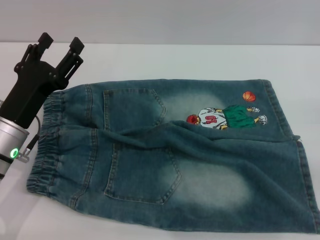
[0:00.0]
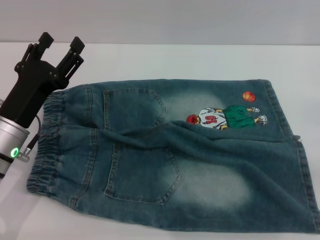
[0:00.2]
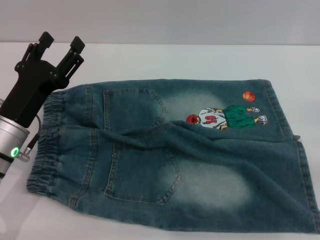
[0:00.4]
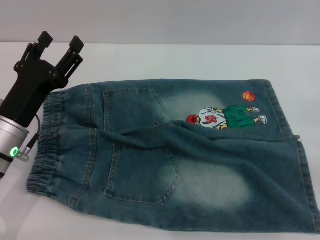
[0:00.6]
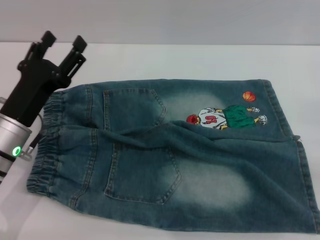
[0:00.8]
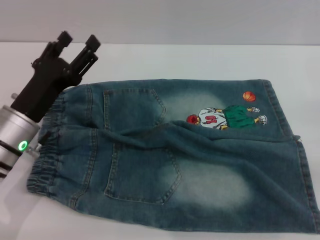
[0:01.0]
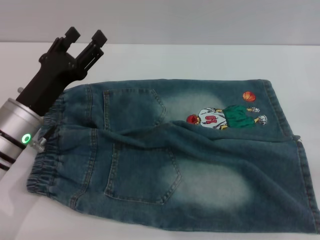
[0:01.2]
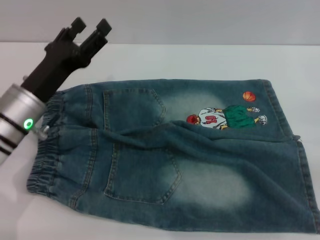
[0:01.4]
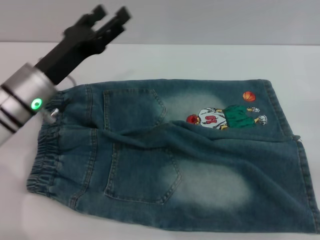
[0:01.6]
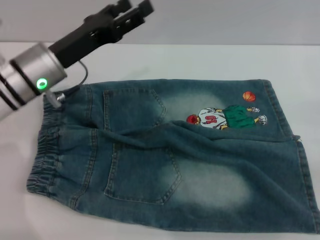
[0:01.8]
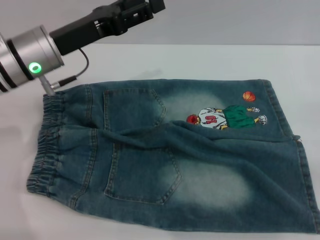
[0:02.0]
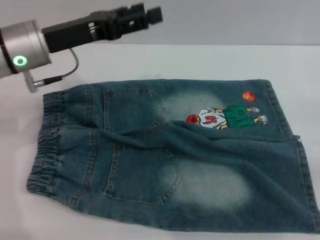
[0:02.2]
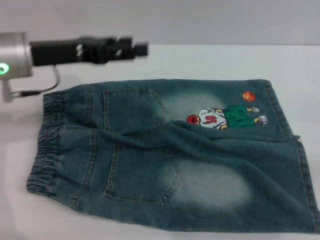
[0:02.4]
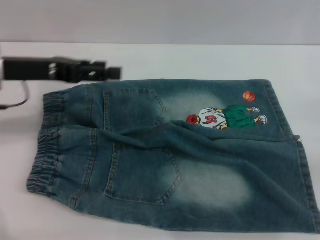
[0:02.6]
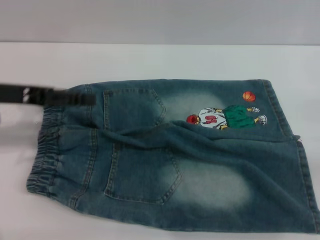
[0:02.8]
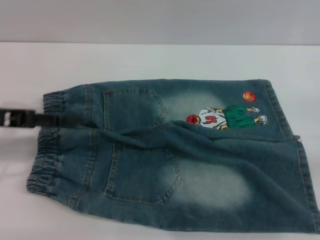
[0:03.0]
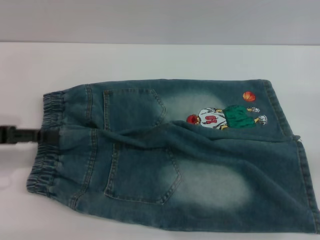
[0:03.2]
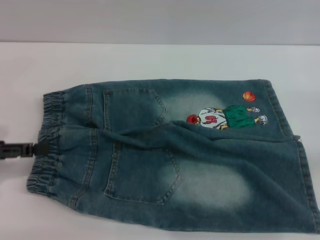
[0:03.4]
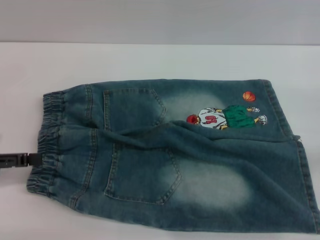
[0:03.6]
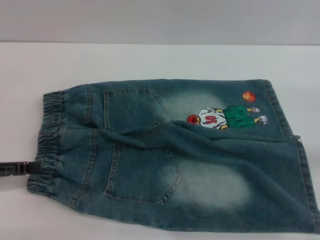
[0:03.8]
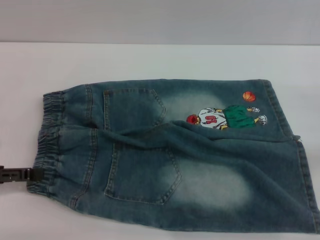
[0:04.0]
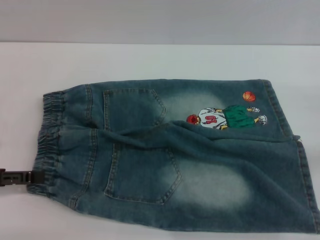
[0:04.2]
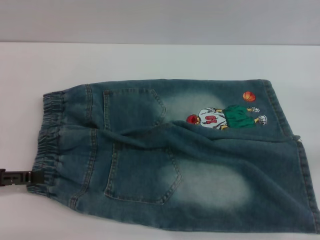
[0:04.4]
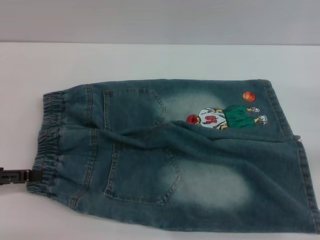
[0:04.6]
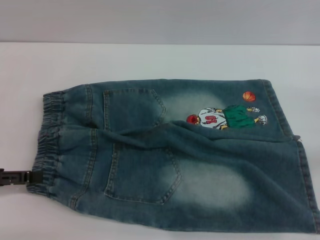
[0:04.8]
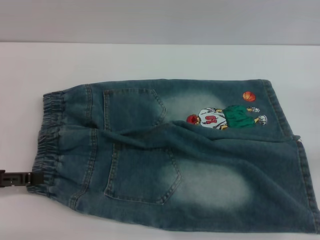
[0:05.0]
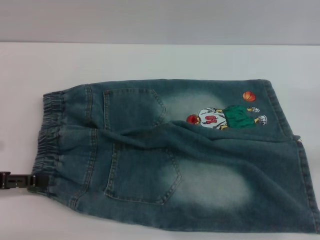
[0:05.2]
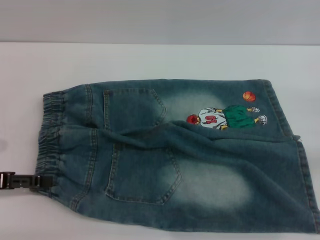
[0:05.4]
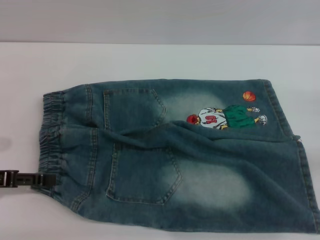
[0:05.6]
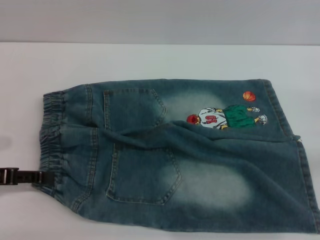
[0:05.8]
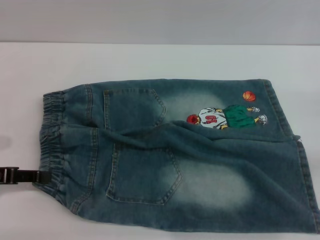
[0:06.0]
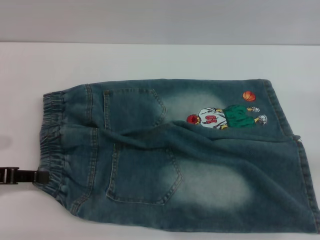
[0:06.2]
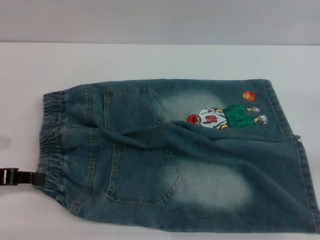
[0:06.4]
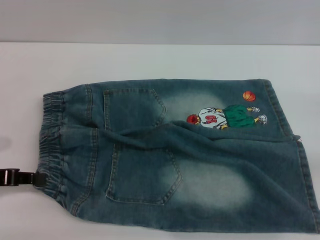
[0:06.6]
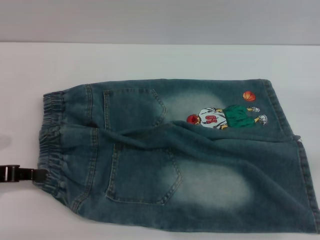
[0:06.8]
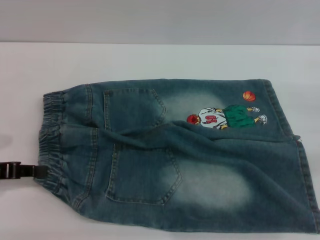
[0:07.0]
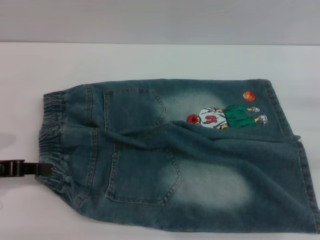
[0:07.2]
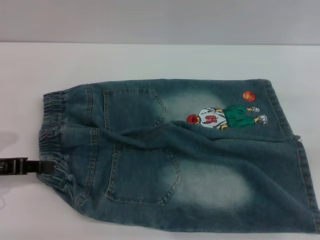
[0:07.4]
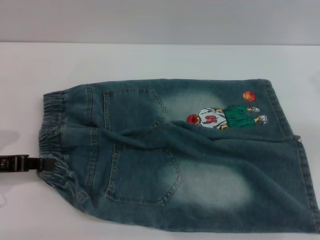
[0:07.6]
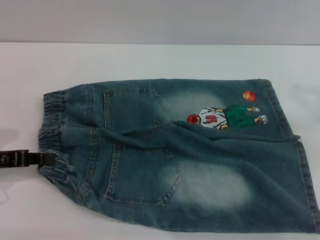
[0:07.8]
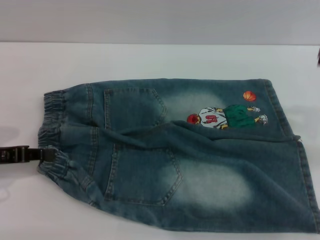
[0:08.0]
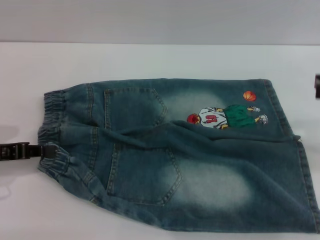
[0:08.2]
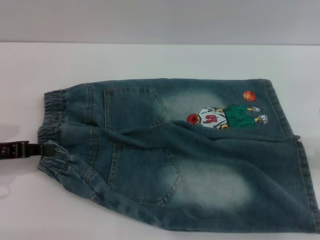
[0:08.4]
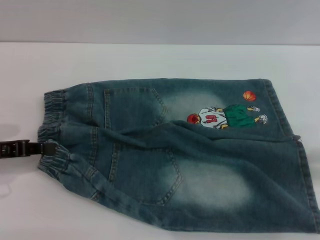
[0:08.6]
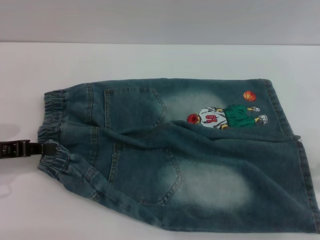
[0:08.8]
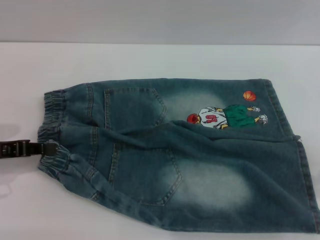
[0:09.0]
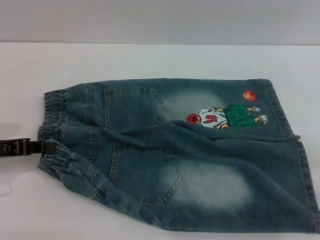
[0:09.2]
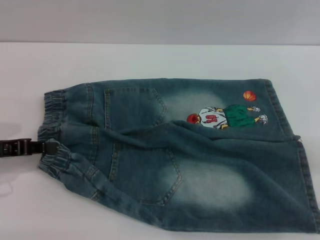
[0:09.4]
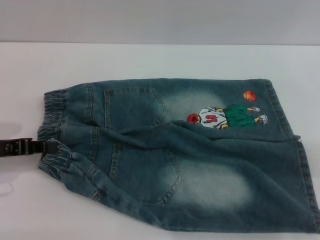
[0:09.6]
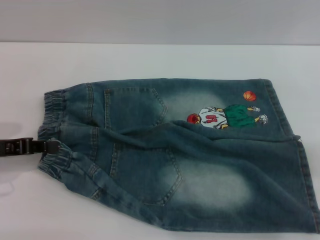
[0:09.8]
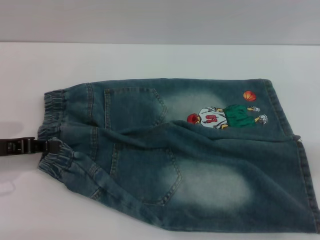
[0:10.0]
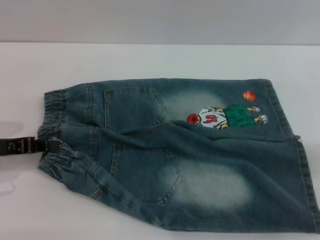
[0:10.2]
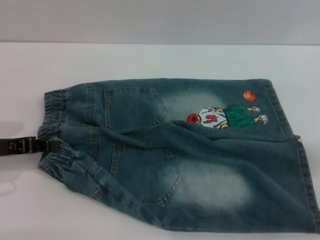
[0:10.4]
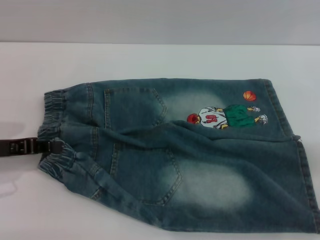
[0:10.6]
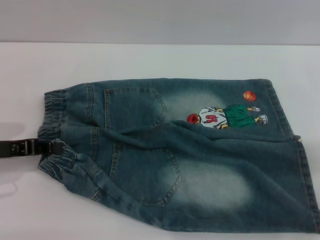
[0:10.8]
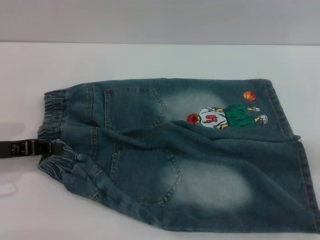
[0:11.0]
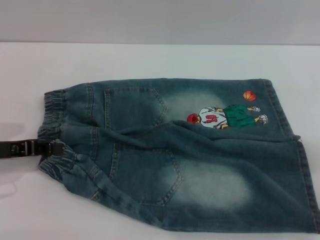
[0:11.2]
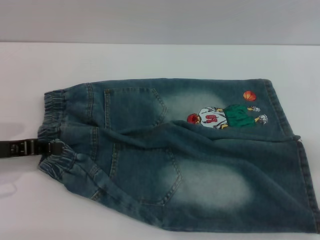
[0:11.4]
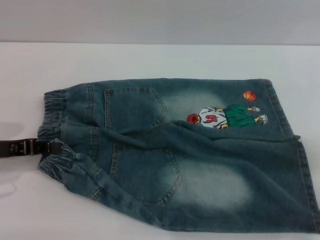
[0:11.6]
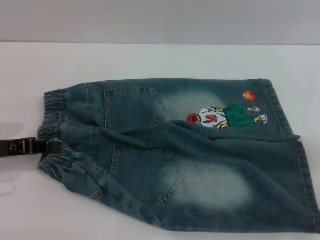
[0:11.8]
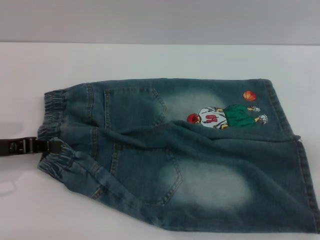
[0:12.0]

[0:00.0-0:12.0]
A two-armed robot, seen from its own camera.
0:00.0 to 0:01.6: The left gripper travels forward by roughly 5 cm.
0:01.6 to 0:03.0: The left gripper heads to the left and upward, covering roughly 10 cm.
0:03.0 to 0:04.4: The left gripper is displaced backward, downward and to the left by some 10 cm.
0:04.4 to 0:06.0: The grippers move only a little.
0:06.0 to 0:07.6: The left gripper closes.

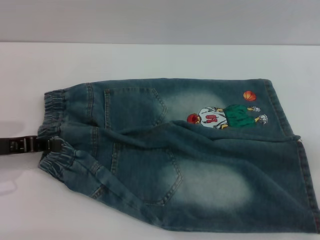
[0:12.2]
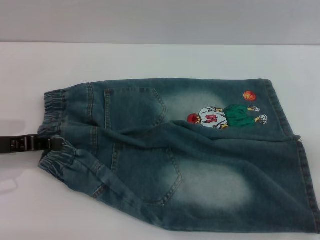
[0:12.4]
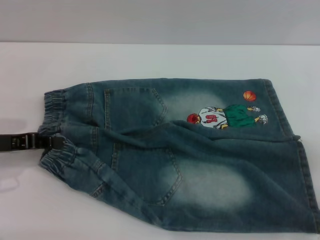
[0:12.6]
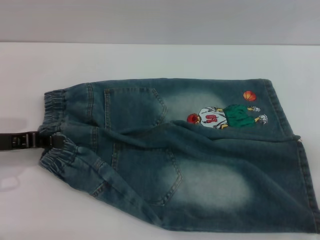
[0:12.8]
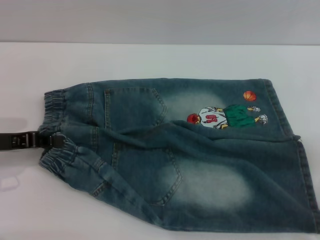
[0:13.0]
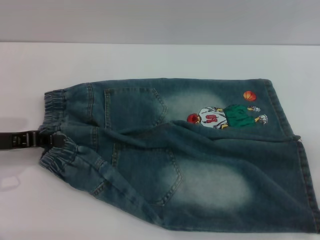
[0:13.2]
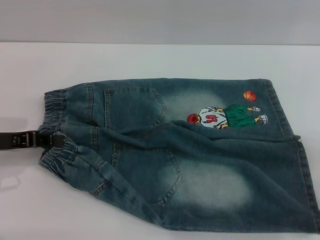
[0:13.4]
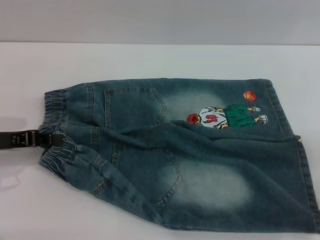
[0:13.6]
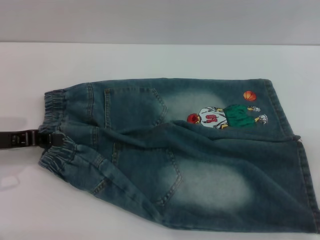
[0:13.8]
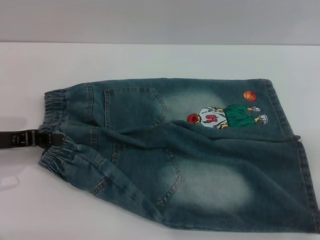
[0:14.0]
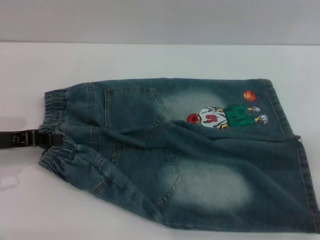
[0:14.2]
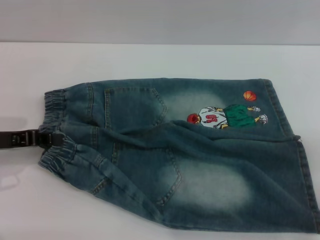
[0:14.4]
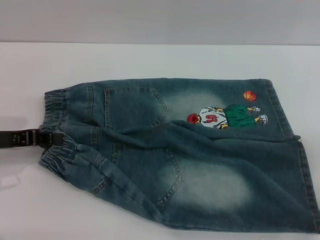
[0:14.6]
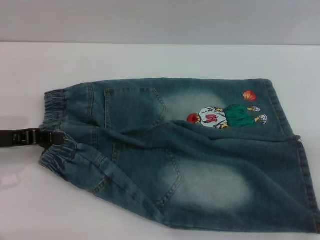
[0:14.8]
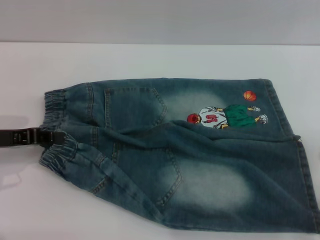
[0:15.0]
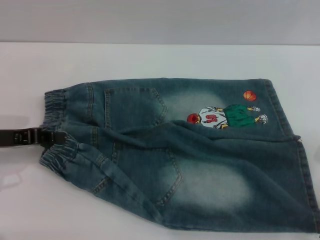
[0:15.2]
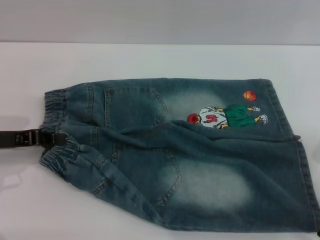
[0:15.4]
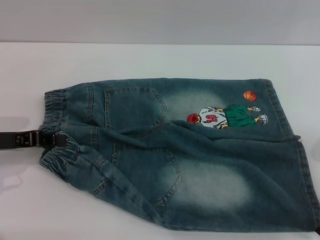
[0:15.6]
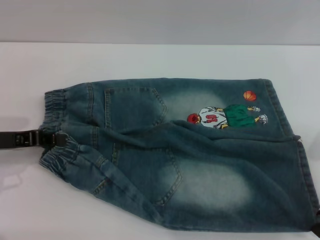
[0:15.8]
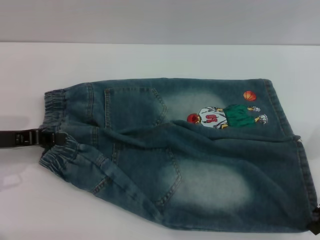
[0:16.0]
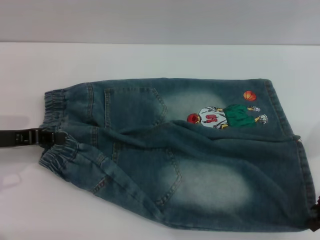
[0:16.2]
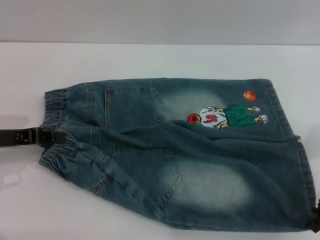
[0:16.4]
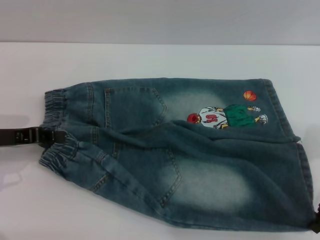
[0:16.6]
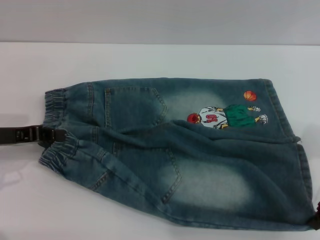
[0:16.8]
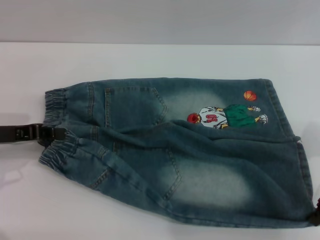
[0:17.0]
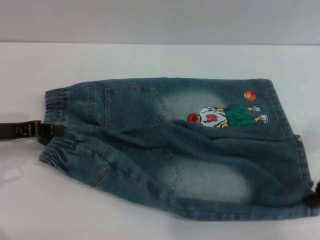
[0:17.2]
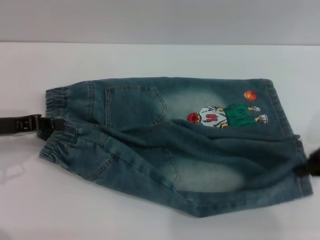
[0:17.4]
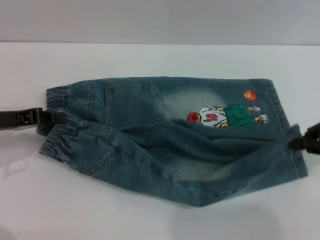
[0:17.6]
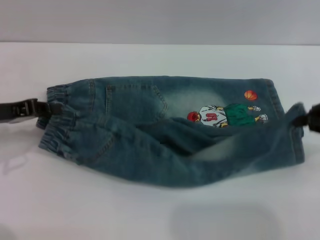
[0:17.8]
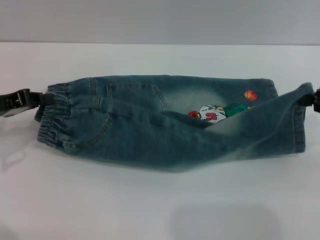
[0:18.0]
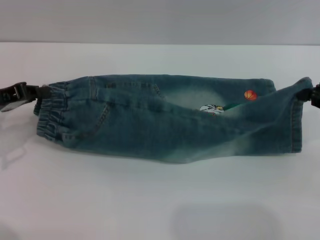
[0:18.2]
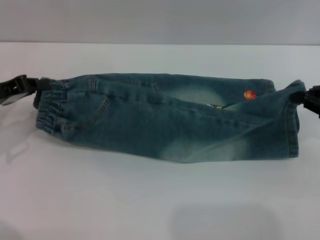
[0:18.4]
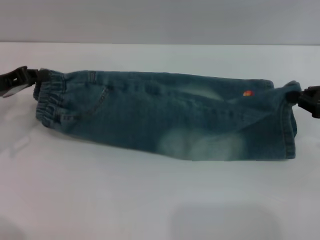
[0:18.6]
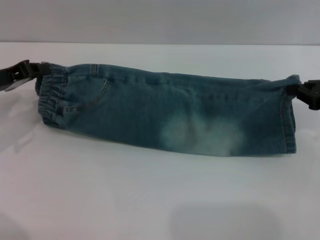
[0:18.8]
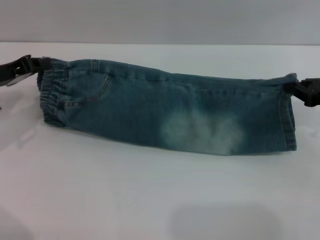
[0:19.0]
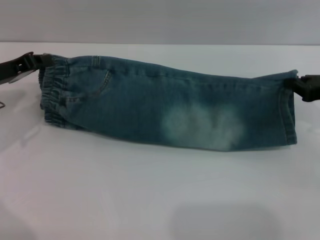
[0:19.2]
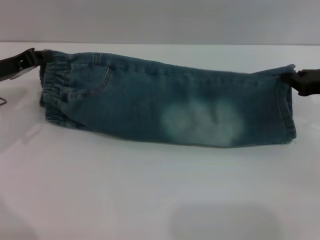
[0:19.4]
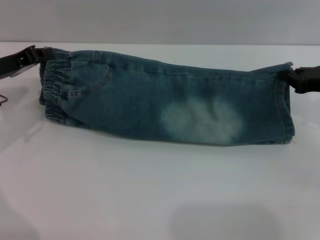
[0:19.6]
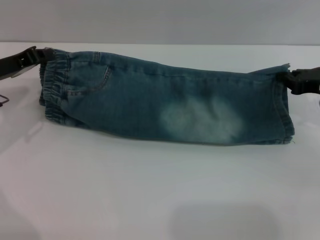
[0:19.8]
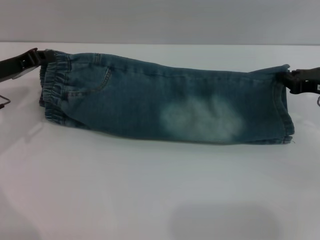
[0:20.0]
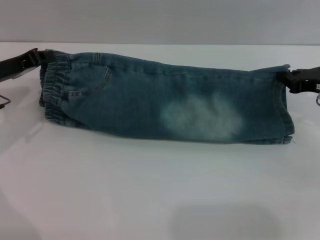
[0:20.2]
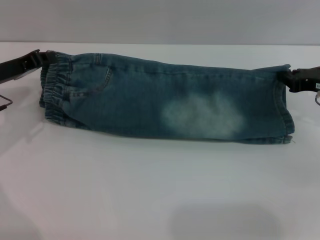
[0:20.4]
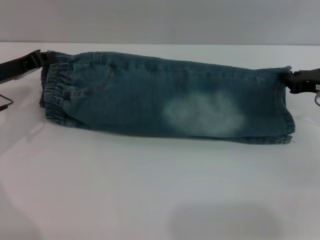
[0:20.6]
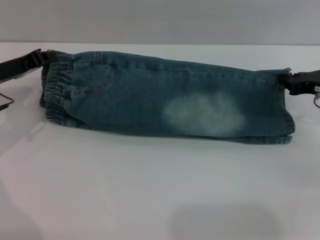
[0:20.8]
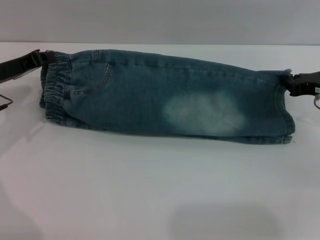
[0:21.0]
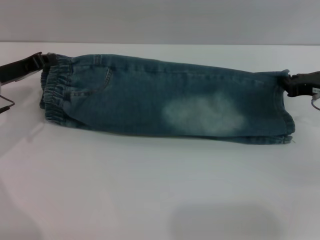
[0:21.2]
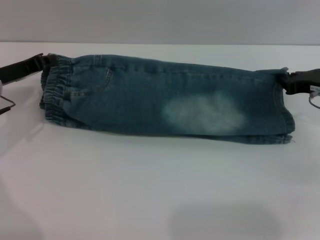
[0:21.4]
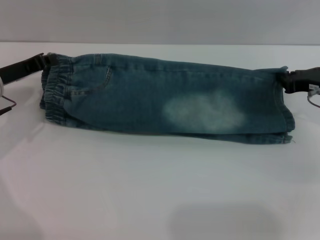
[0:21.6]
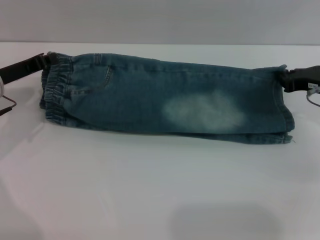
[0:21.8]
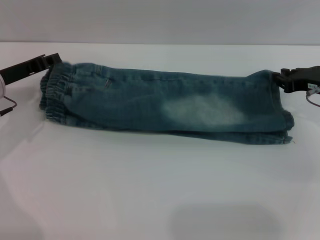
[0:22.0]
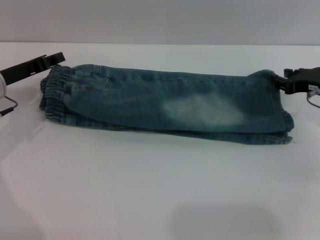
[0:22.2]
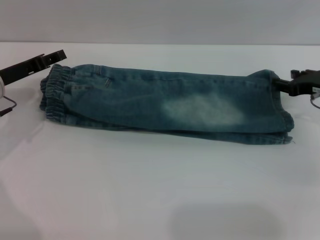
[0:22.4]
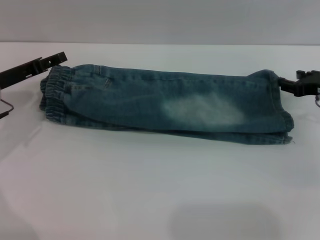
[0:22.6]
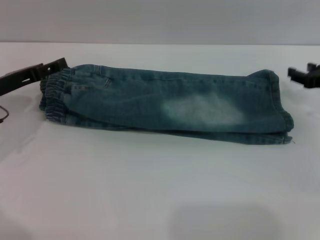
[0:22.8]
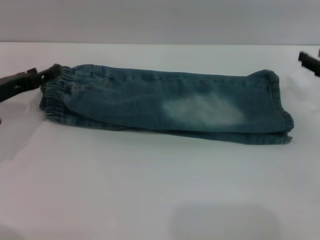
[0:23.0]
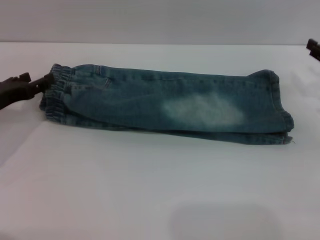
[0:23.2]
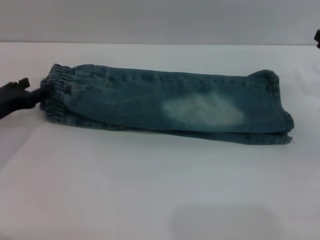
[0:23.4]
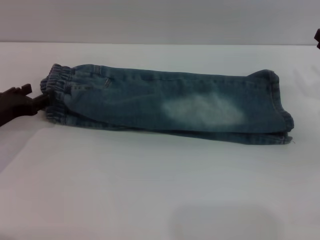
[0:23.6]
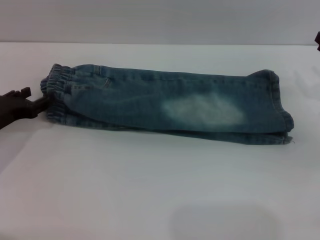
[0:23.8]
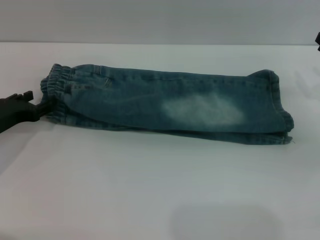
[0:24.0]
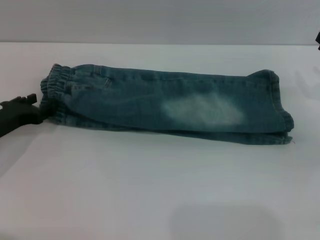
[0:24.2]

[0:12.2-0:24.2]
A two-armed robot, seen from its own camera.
Step, 0:12.2 to 0:22.0: Fold the bottom of the pants upward with both grippers.
0:12.2 to 0:16.6: The grippers move only a little.
0:16.6 to 0:18.2: The right gripper ends up approximately 5 cm from where it was, and closes its fingers.
0:18.2 to 0:19.8: The left gripper changes place by roughly 5 cm. Meanwhile the right gripper travels downward and forward by about 5 cm.
0:19.8 to 0:21.2: The grippers make only small movements.
0:21.2 to 0:22.6: The right gripper opens. Meanwhile the left gripper opens.
0:22.6 to 0:24.2: The left gripper moves downward, about 5 cm. Meanwhile the right gripper shifts by about 5 cm.
